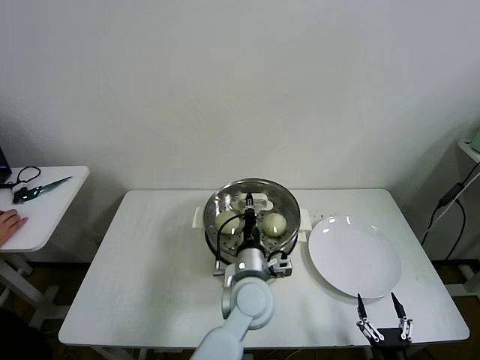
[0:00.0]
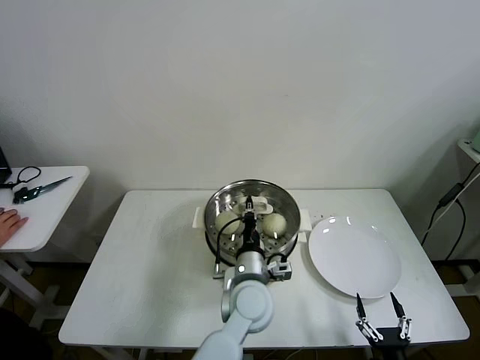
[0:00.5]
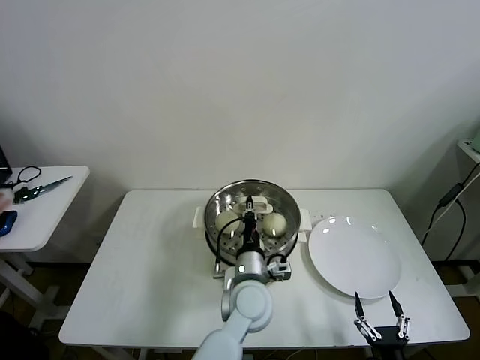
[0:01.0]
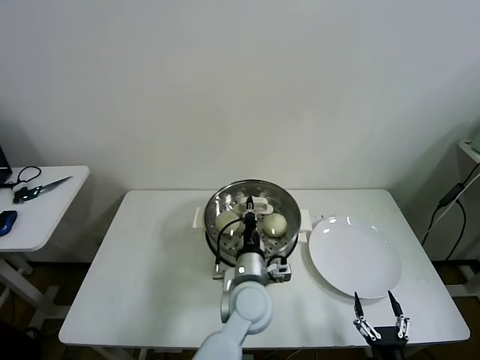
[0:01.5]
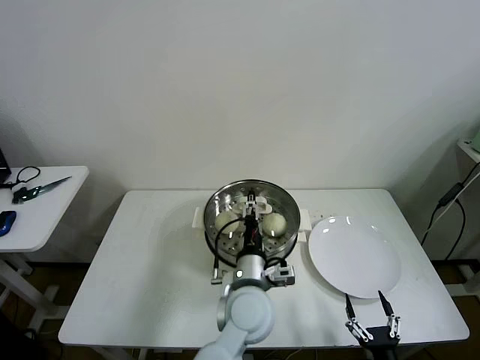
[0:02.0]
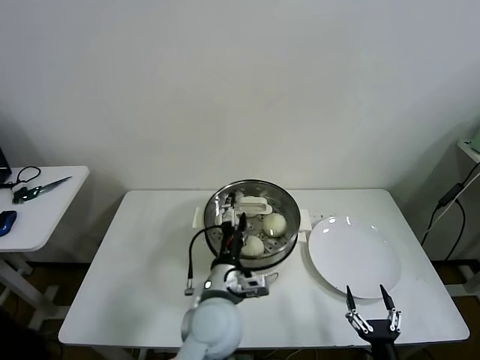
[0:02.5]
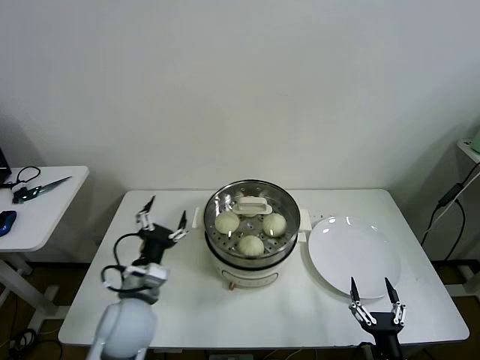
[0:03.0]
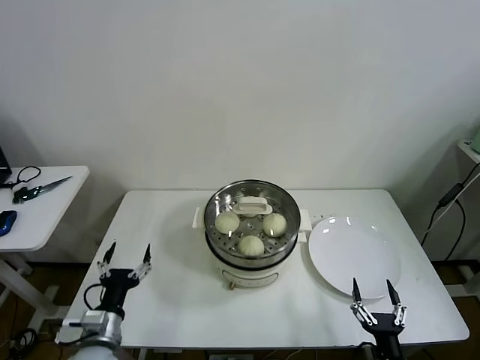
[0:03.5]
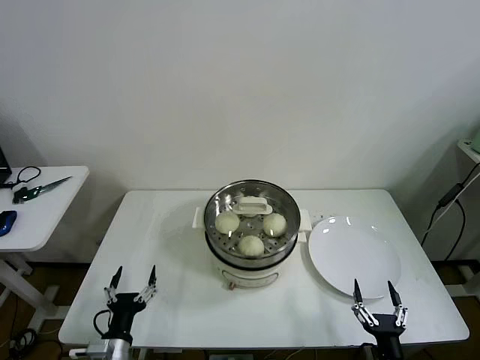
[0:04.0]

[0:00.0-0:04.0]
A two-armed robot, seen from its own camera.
Task of the whole recording: take steamed baozi put them in steamer then cover it.
Step, 0.0 to 2.0 s: Place the pot lid on the steamer with left gripper.
0.0 to 2.0 s: The left gripper opens its fingers.
2.0 to 4.0 s: The left gripper heads to the left, downward and backward, covering approximately 35 cm, and opens its fingers.

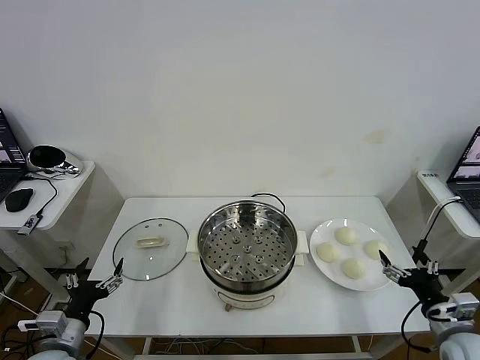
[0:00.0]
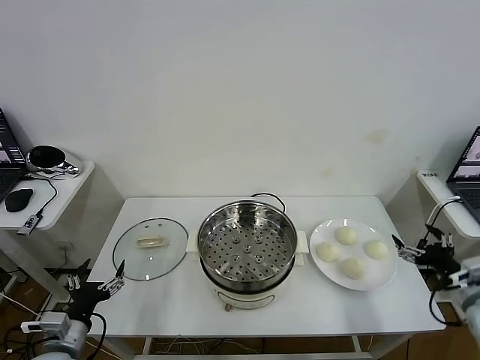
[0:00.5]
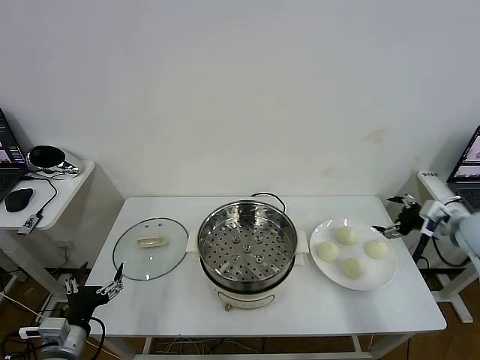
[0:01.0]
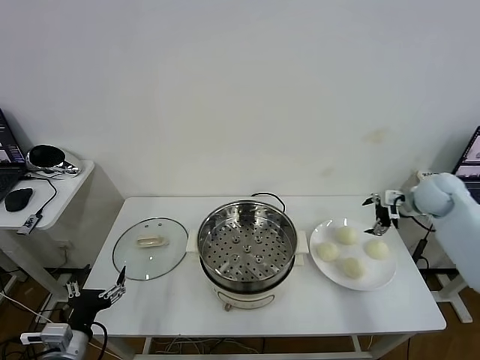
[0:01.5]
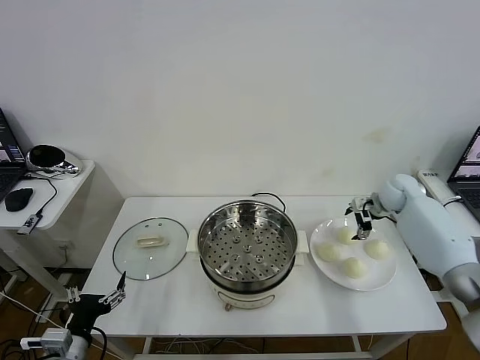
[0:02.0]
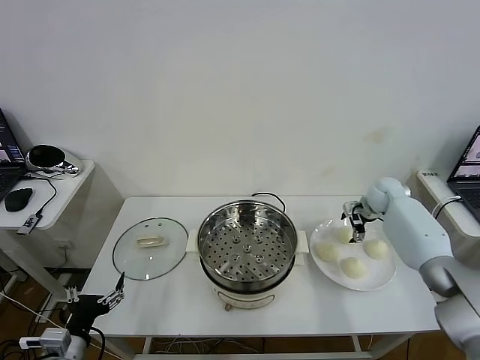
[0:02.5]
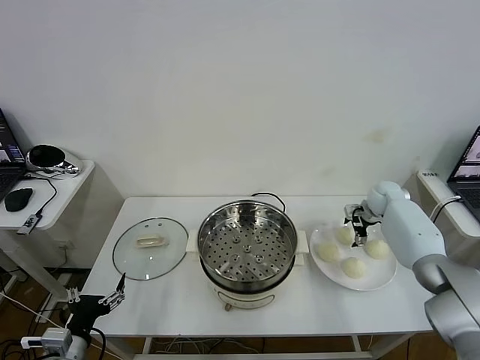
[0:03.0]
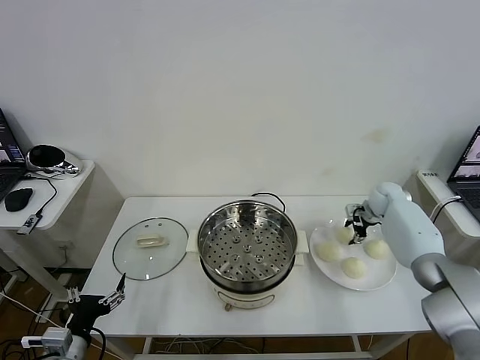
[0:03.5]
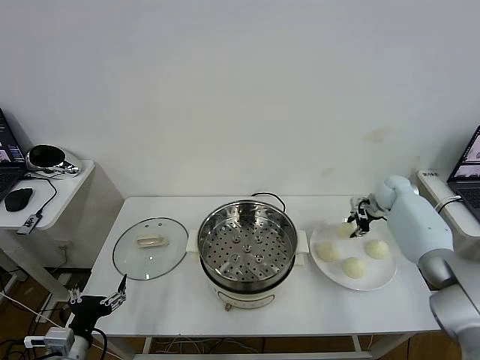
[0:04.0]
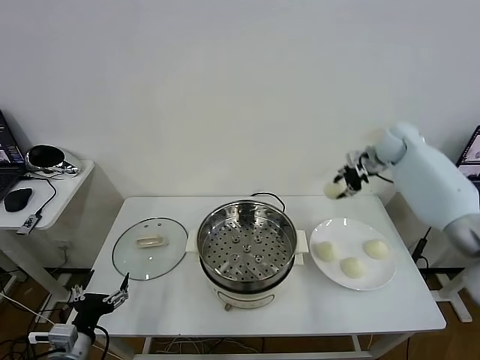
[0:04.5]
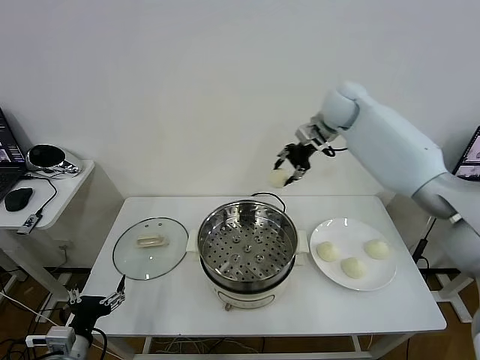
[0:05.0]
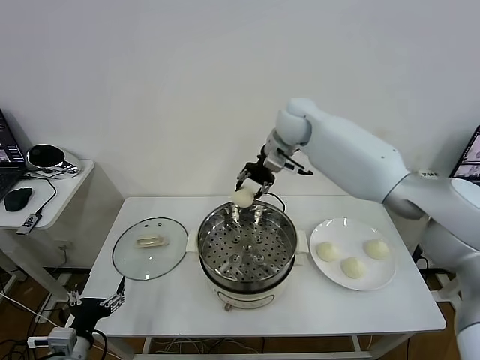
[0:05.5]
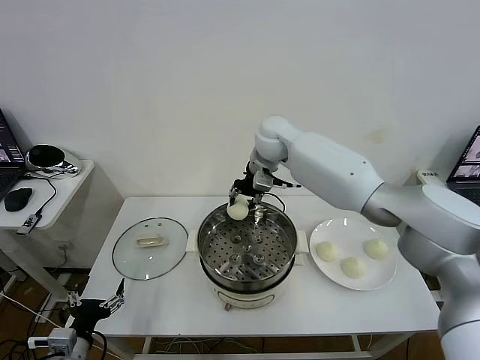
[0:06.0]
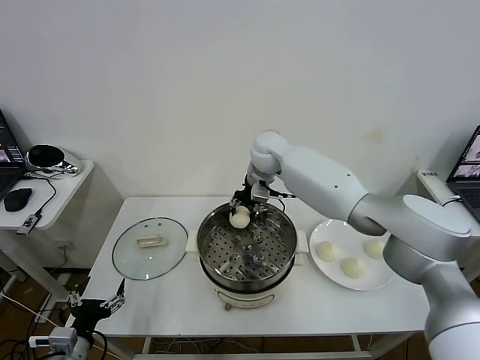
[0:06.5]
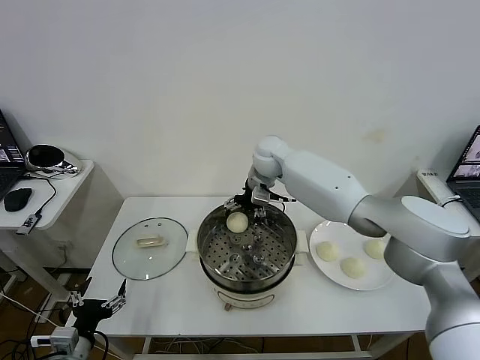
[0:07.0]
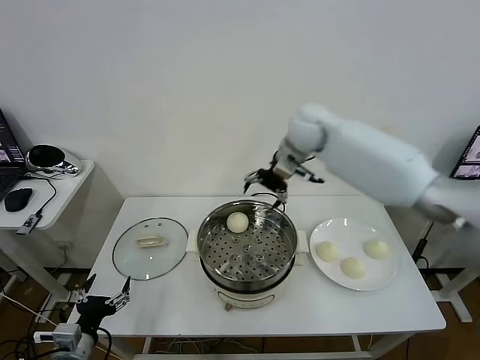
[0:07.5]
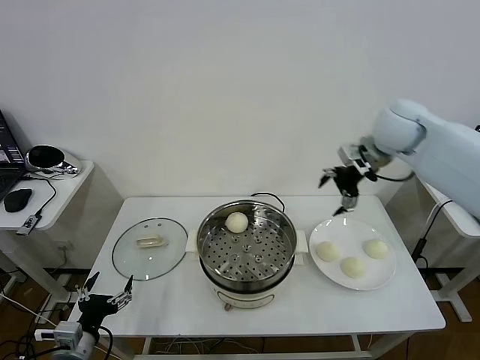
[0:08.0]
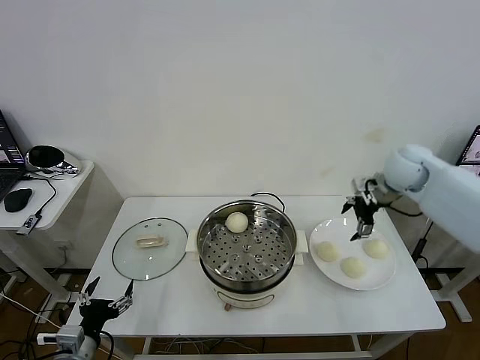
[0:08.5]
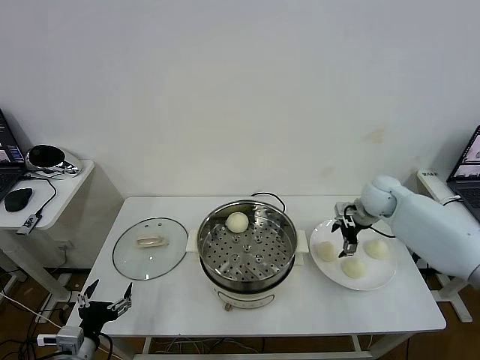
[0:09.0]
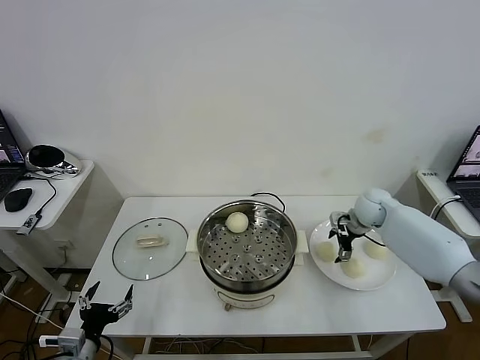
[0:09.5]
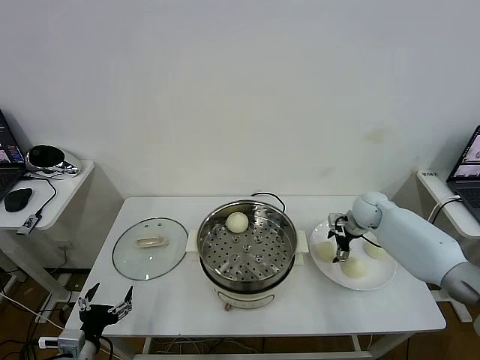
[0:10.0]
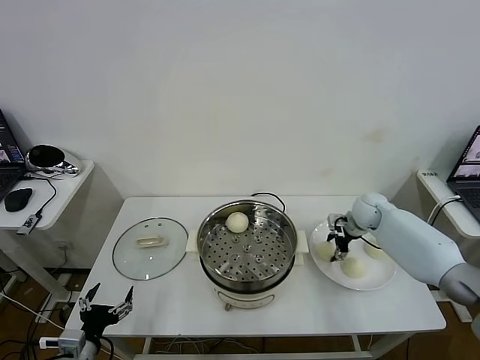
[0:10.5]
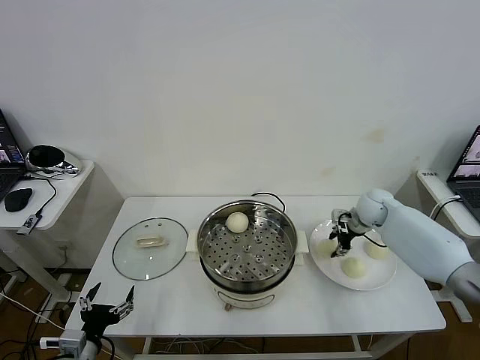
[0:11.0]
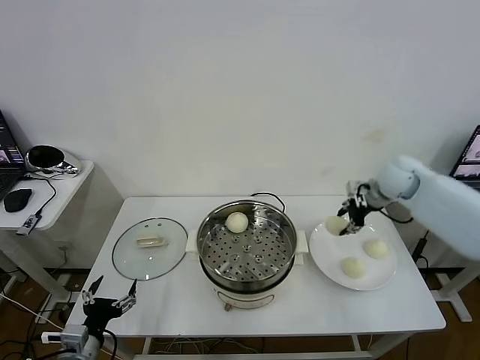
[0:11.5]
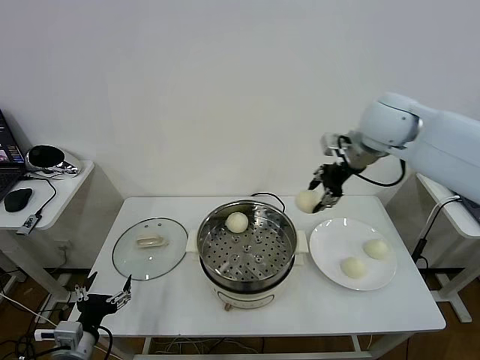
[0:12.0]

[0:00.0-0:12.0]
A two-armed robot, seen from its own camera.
Task of the whole recording: take steamed baozi put them in steamer then cover it.
Step, 0.0 to 3.5 s: Grasp the baozi in the plate with right gripper.
Step, 4.0 to 7.0 s: Place the baozi on the steamer with right gripper.
Step, 7.5 to 10.5 s: Grasp the baozi in the plate with right gripper.
2.0 to 4.0 s: The right gripper closes its fingers.
4.0 to 6.0 s: The right gripper travels to the left by roughly 35 cm.
6.0 to 8.0 s: The right gripper shifts roughly 25 cm to the right, and opens.
8.0 to 10.0 s: The right gripper heads downward, covering roughly 25 cm.
10.0 to 12.0 s: The right gripper is displaced upward by some 30 cm, and closes.

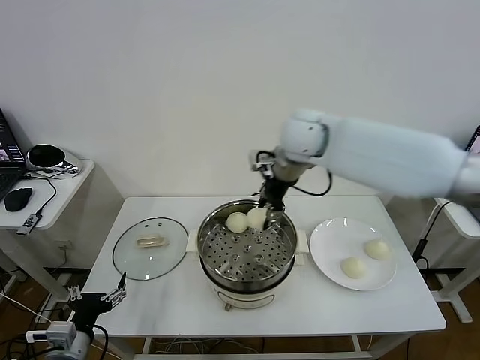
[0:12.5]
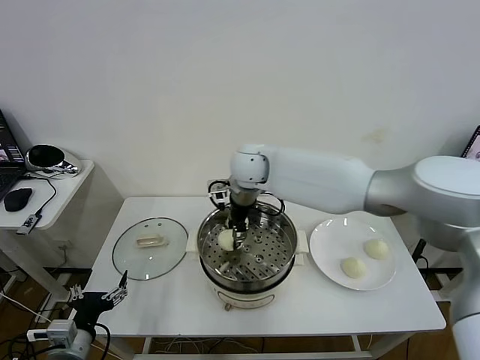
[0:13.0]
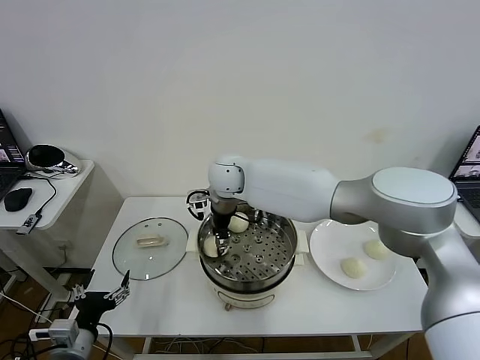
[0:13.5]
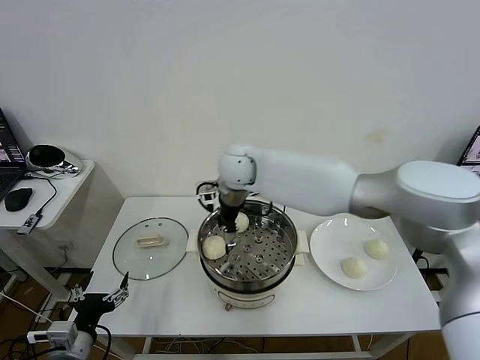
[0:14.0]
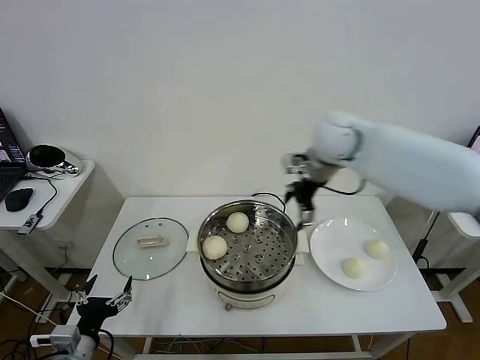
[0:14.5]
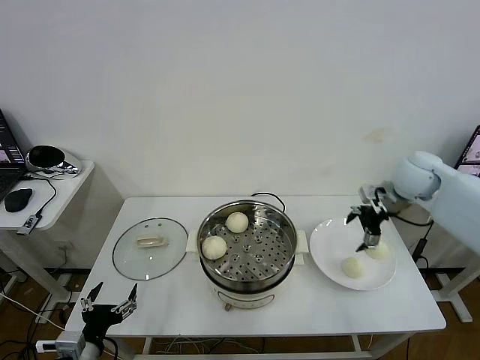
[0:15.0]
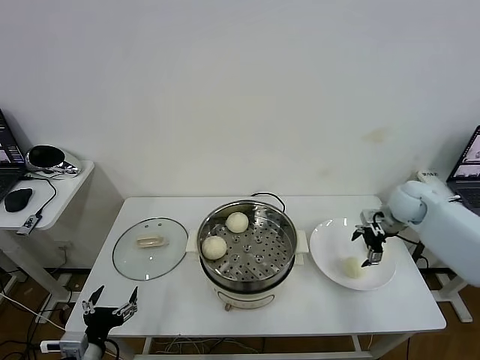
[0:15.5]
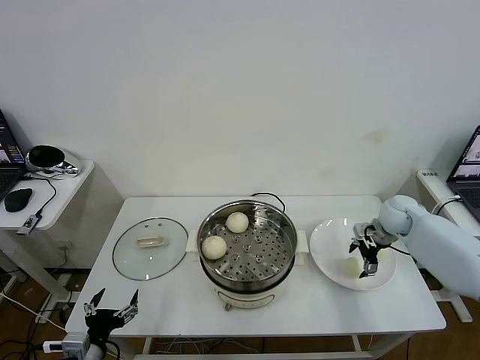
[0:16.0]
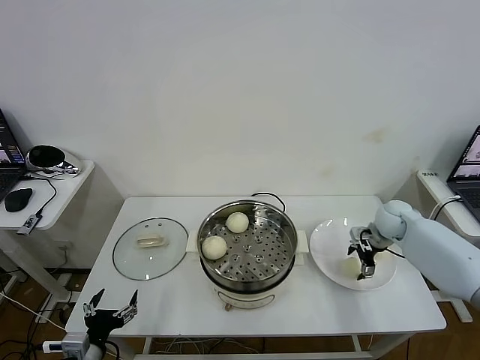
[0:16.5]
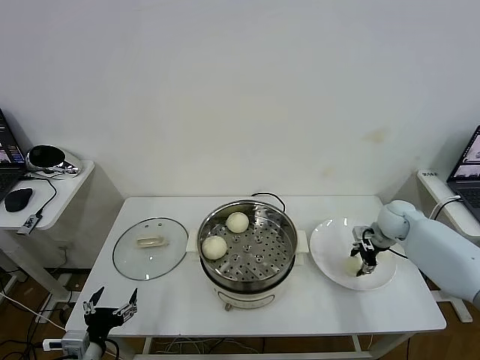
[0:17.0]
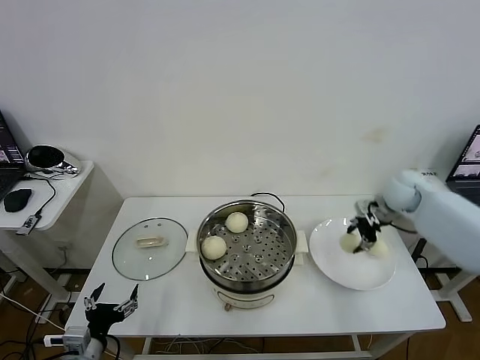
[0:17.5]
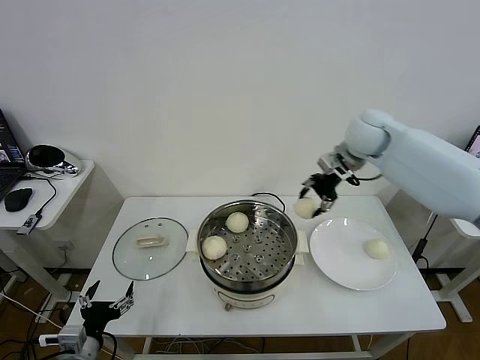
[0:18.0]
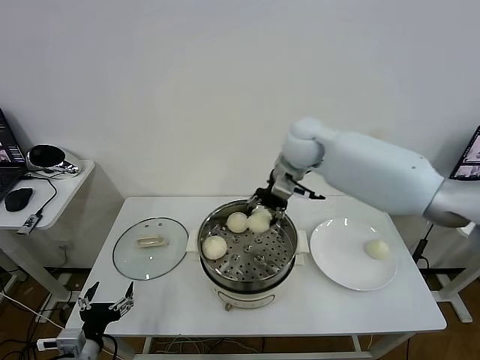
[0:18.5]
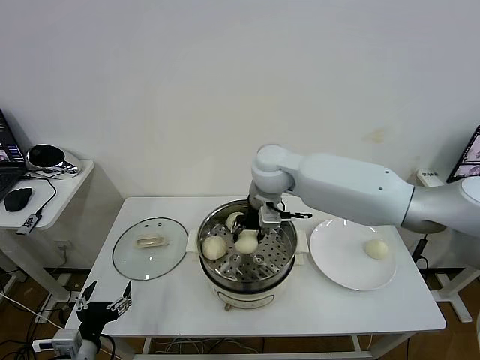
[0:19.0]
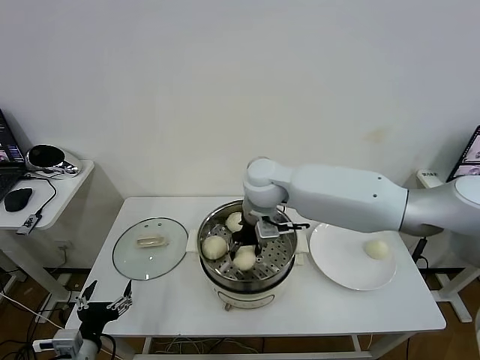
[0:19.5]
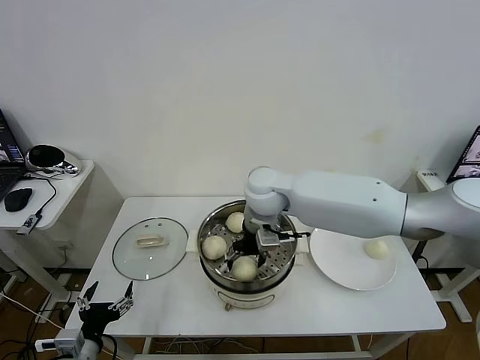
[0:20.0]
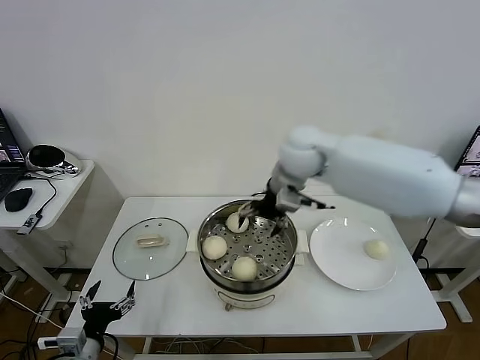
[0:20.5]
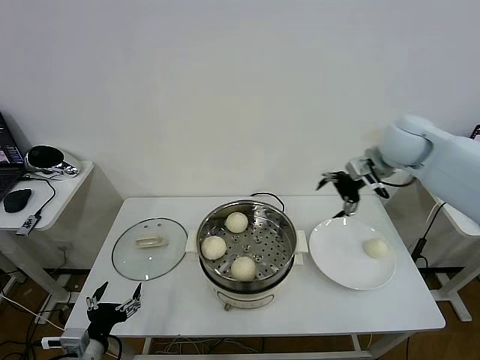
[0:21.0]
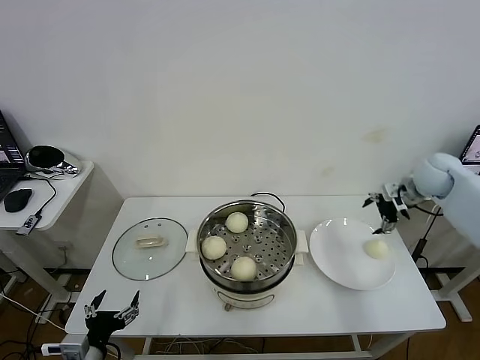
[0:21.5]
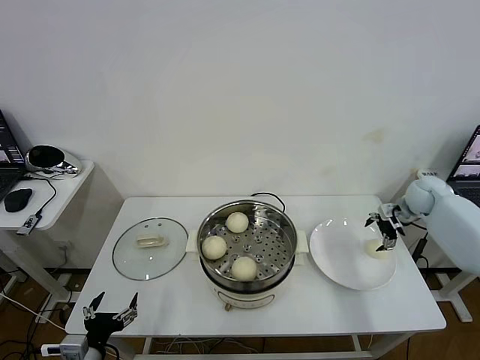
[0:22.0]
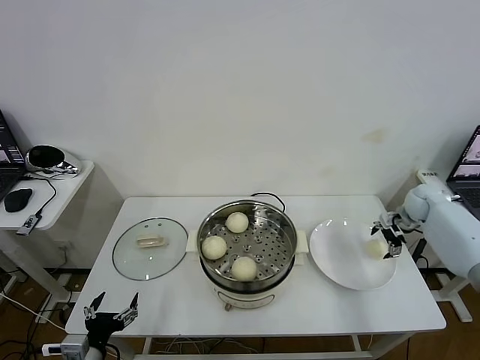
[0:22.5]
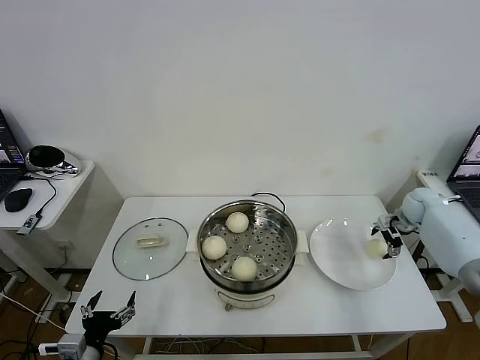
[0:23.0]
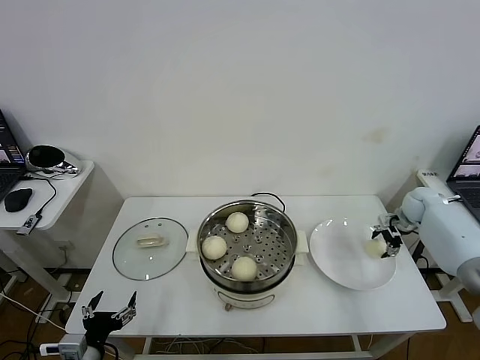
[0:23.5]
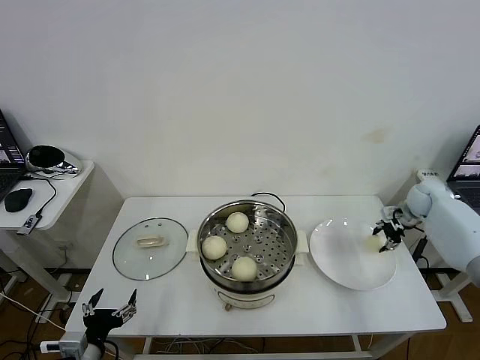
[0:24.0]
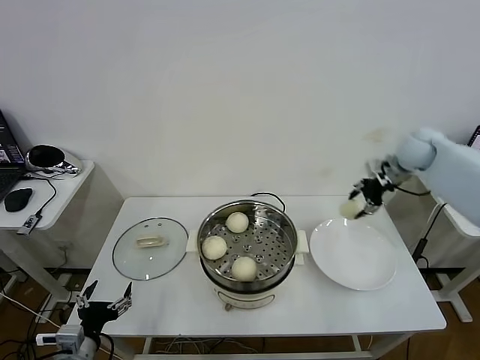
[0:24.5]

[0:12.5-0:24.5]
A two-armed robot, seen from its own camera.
Task of the whole recording: take steamed baozi put them in steamer then cover it.
Step, 14.5 to 17.0 s: Grasp the baozi in the plate with right gripper.
Step, 17.5 to 20.0 s: Place the baozi on the steamer with right gripper.
Step, 20.5 to 23.5 s: Grasp the baozi in the plate with right gripper.
12.5 to 14.5 s: The right gripper goes some 15 cm to the right, and opens up.
14.5 to 16.5 s: The right gripper shifts approximately 30 cm downward and to the right.
16.5 to 18.5 s: The right gripper is displaced to the left and upward by some 35 cm, and closes up.
18.5 to 20.5 s: The right gripper moves some 5 cm to the left and comes back, and opens.
20.5 to 22.5 s: The right gripper is displaced to the right and downward by approximately 40 cm.
22.5 to 24.5 s: The right gripper moves upward and to the left, some 20 cm, and closes its fingers.
